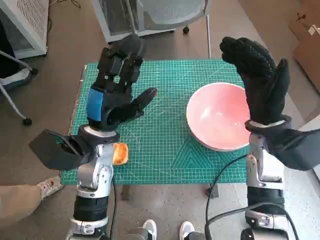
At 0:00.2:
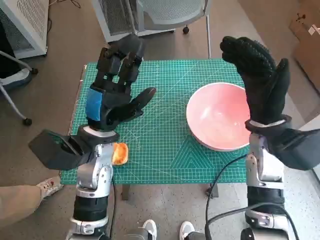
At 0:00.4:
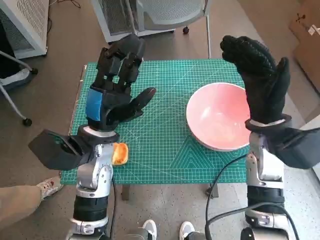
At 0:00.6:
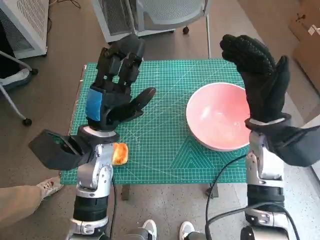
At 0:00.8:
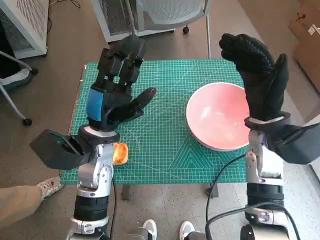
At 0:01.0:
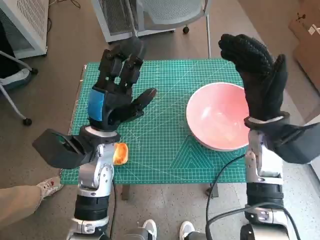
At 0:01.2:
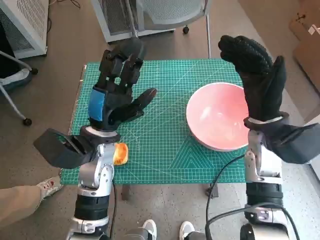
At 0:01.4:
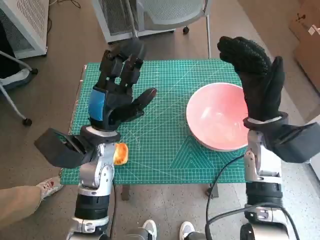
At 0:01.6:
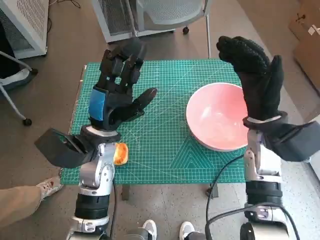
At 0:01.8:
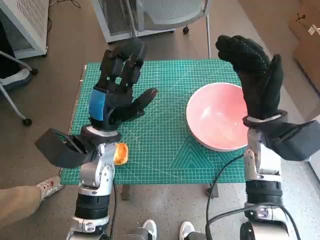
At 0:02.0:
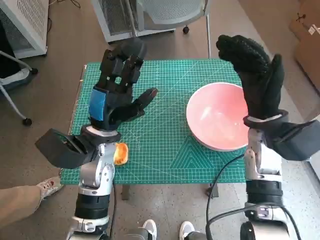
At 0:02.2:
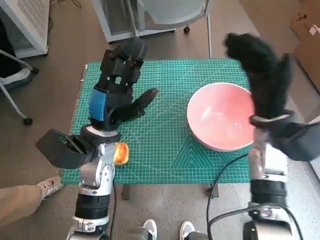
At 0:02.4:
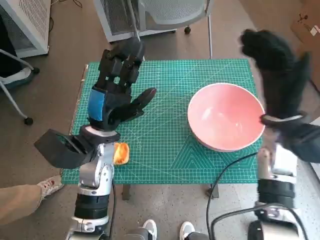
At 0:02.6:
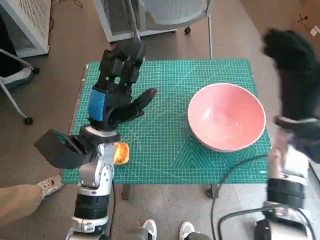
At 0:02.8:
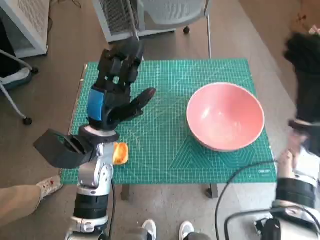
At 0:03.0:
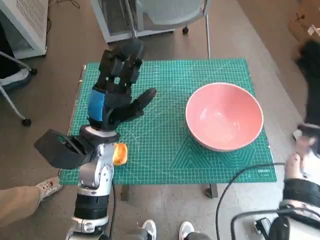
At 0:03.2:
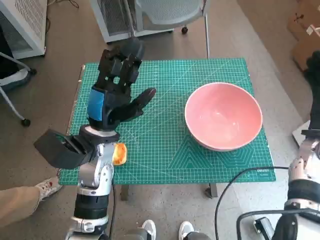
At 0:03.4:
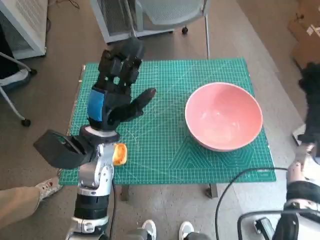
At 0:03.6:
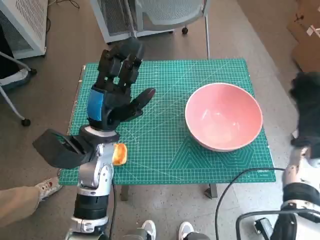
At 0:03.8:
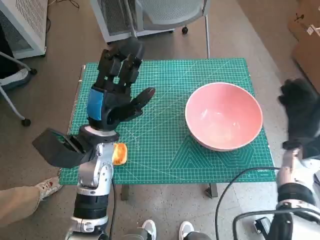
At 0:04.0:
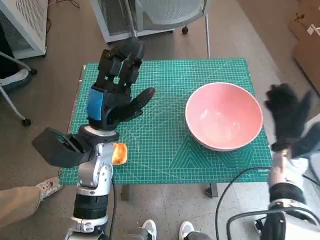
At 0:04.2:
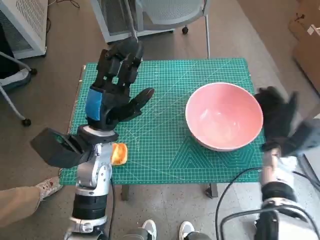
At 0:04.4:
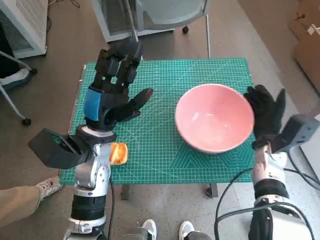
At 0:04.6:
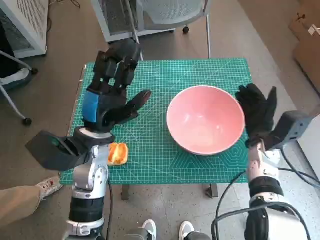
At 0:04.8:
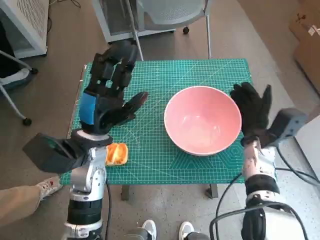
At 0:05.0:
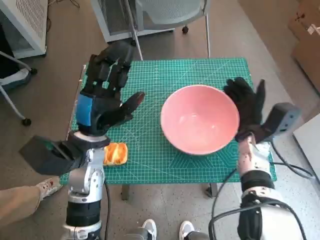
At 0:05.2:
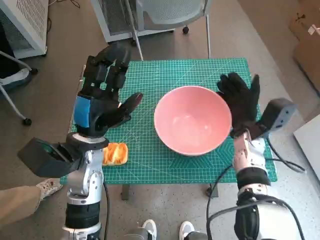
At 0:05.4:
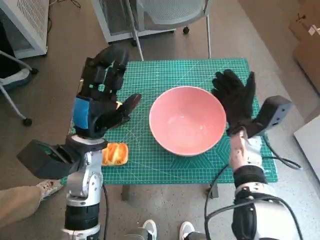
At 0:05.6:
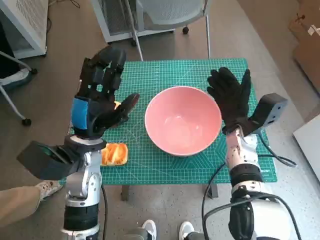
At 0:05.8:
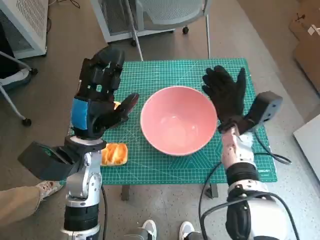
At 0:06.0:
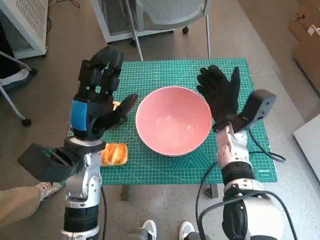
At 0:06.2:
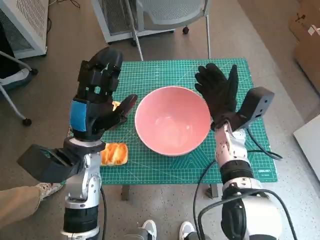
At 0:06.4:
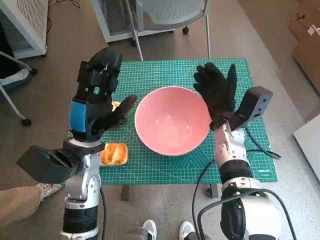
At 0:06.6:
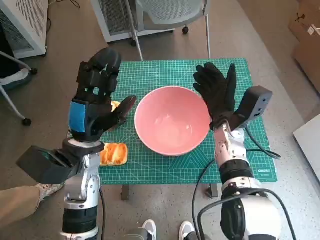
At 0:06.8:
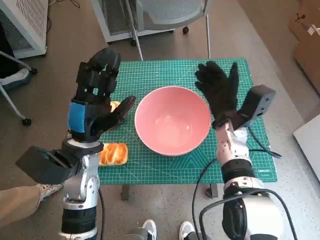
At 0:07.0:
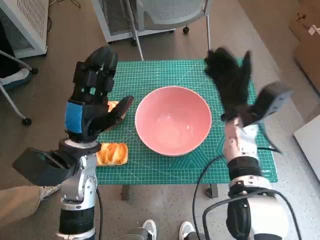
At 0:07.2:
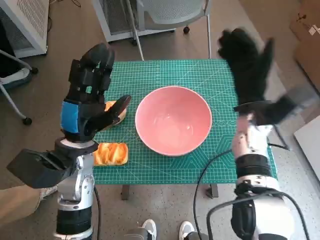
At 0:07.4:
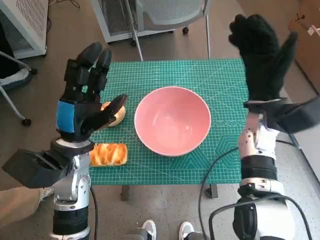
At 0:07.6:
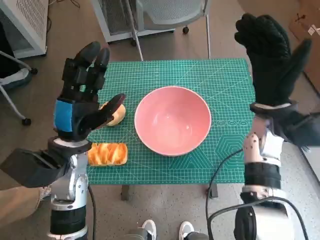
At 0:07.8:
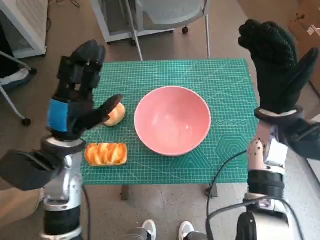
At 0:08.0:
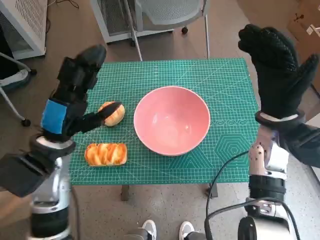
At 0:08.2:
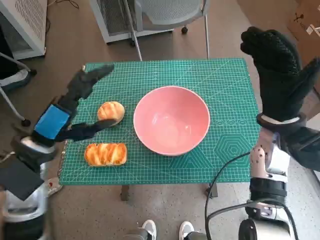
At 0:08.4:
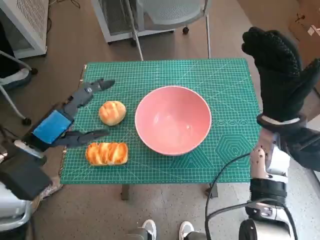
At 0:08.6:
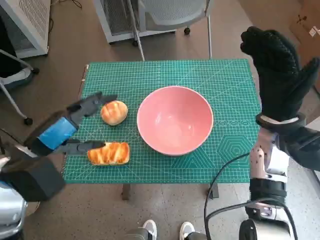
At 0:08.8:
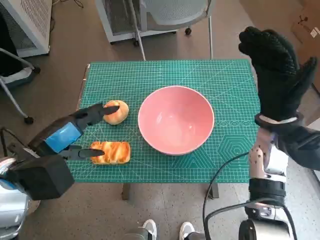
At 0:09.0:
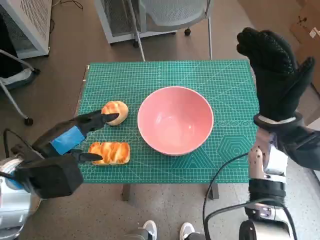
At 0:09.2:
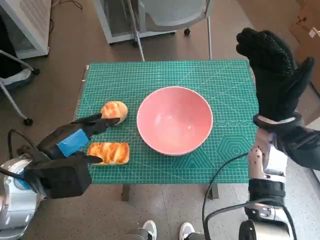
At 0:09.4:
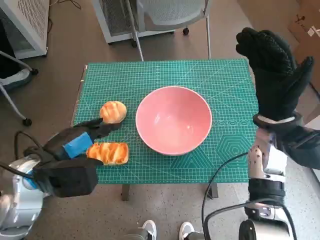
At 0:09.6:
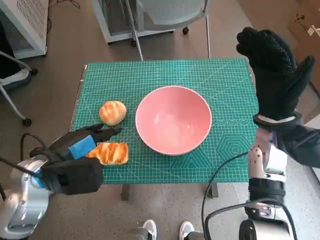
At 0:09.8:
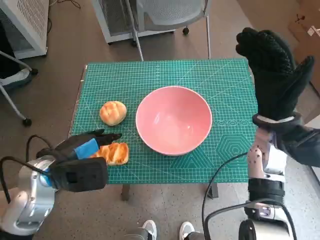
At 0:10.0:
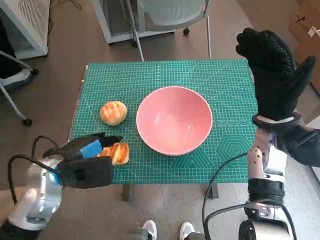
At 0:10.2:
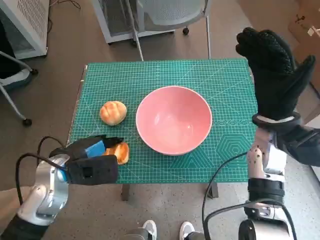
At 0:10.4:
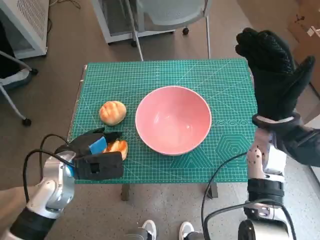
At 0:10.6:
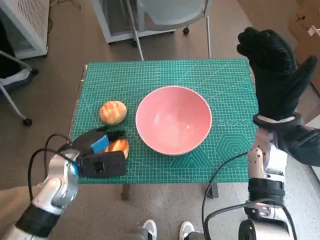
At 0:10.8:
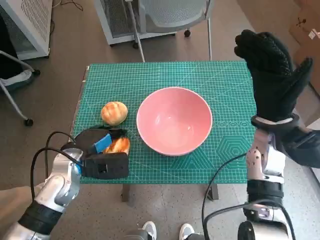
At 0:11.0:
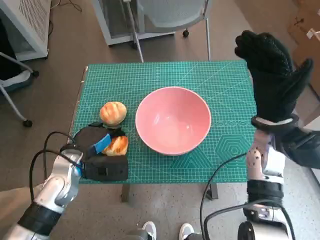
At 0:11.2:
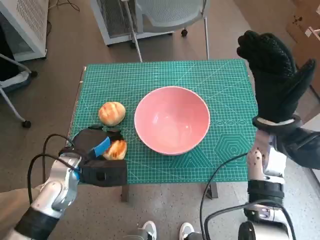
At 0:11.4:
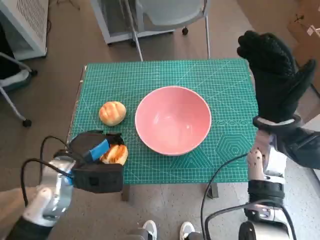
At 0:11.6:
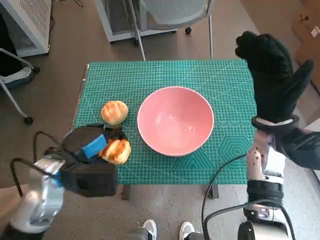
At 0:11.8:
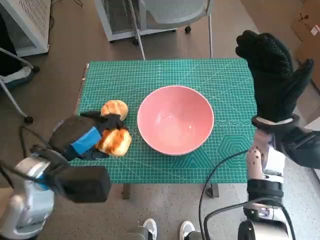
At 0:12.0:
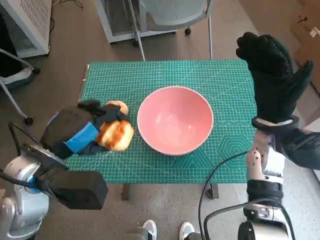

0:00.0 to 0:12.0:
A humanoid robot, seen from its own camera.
Step, 0:00.0 to 0:06.2: Move the pink bowl to the center of table with right hand.
Step, 0:06.4 to 0:11.0: Grasp the long bread with left hand.
0:01.6 to 0:03.0: The right hand is displaced to the right by about 10 cm.
0:03.0 to 0:04.4: The right hand goes approximately 10 cm downward.
0:04.4 to 0:06.0: The right hand is displaced to the left by approximately 10 cm.
0:06.0 to 0:07.6: The right hand travels upward by approximately 10 cm.
0:07.6 to 0:09.0: The left hand shifts by roughly 10 cm.
0:09.0 to 0:10.4: The left hand travels downward by approximately 10 cm.
0:10.4 to 0:12.0: The left hand goes some 10 cm upward.

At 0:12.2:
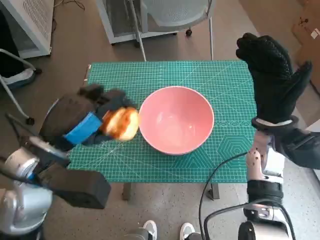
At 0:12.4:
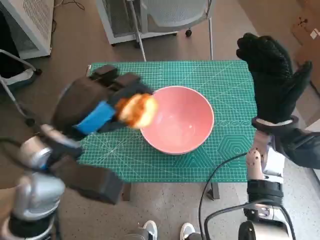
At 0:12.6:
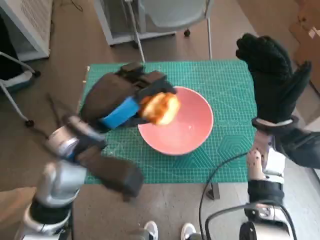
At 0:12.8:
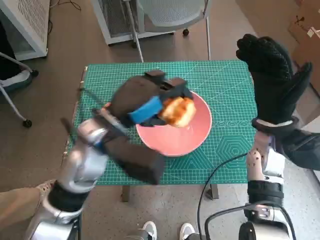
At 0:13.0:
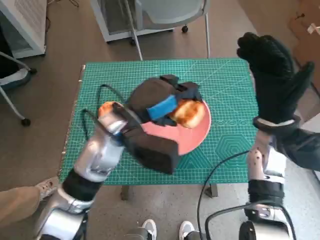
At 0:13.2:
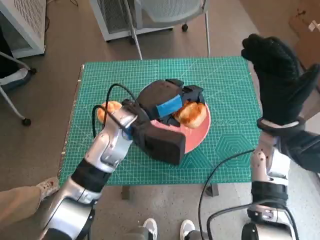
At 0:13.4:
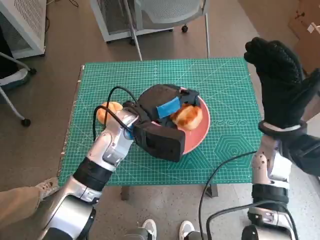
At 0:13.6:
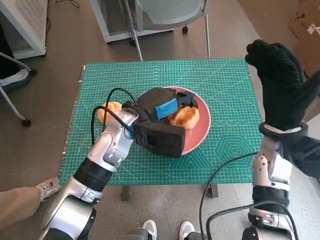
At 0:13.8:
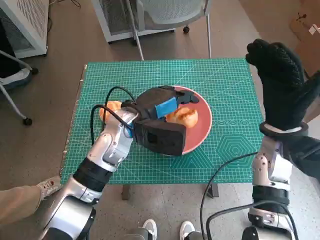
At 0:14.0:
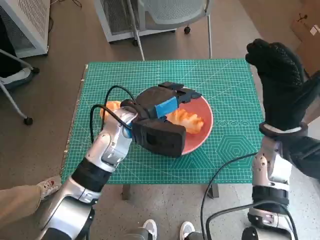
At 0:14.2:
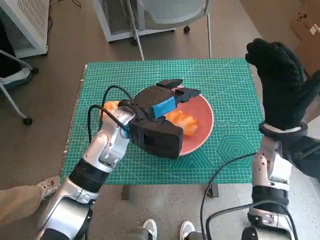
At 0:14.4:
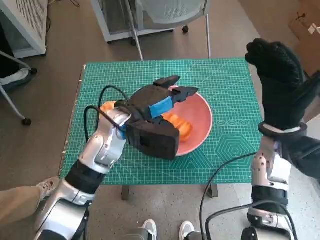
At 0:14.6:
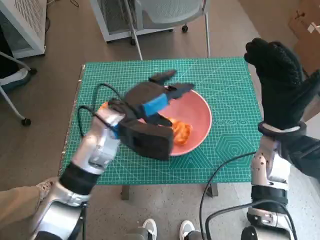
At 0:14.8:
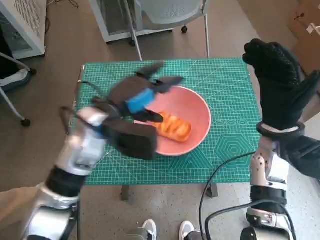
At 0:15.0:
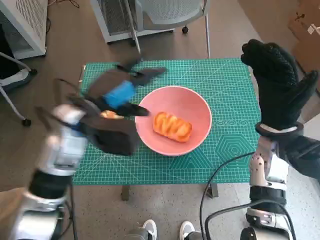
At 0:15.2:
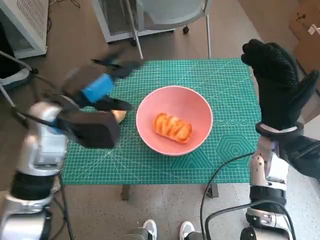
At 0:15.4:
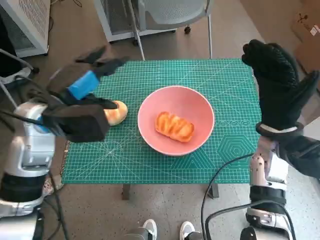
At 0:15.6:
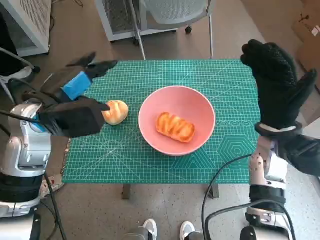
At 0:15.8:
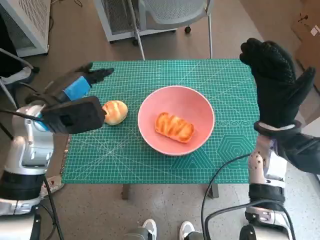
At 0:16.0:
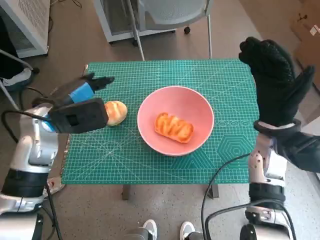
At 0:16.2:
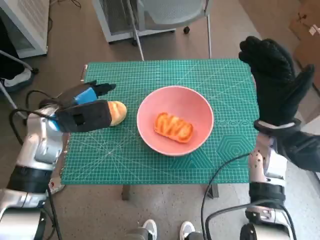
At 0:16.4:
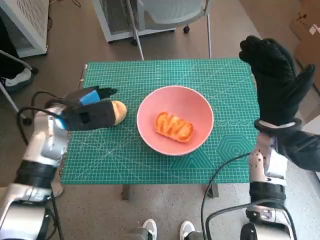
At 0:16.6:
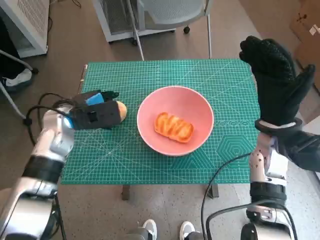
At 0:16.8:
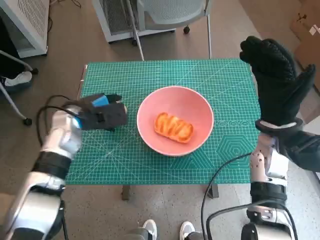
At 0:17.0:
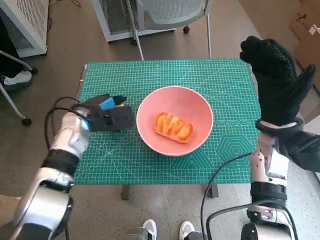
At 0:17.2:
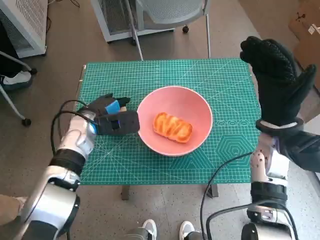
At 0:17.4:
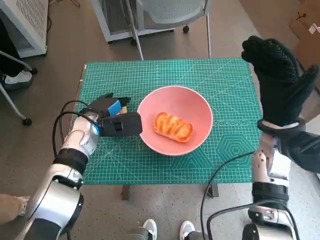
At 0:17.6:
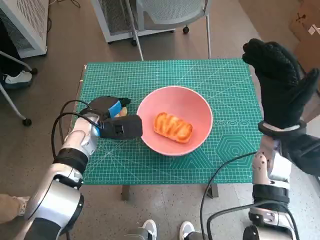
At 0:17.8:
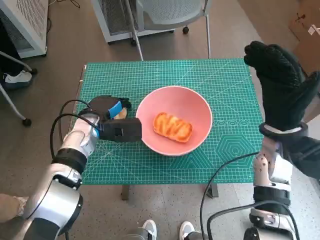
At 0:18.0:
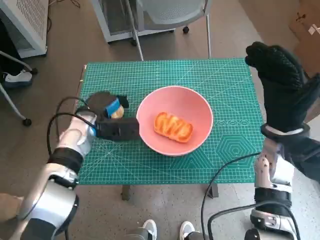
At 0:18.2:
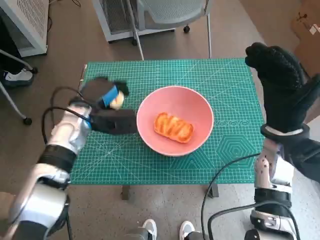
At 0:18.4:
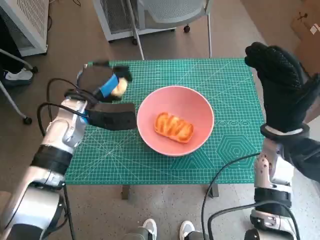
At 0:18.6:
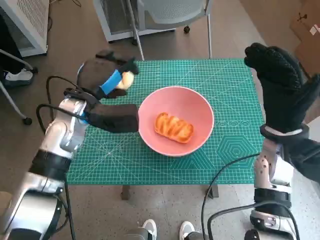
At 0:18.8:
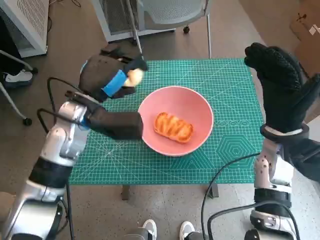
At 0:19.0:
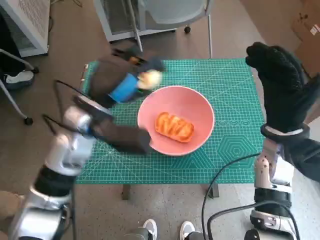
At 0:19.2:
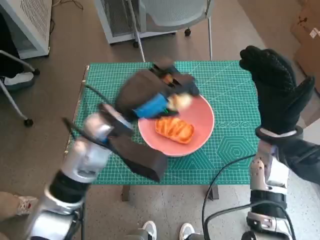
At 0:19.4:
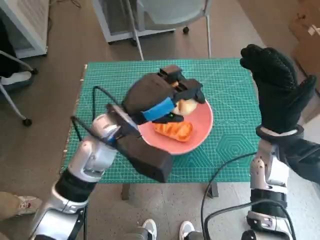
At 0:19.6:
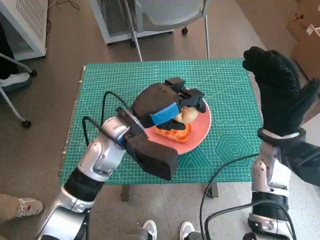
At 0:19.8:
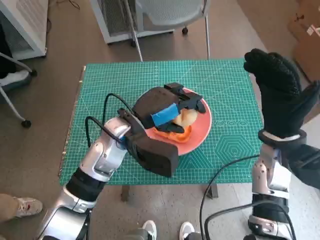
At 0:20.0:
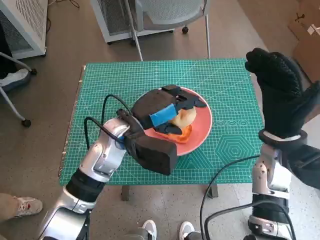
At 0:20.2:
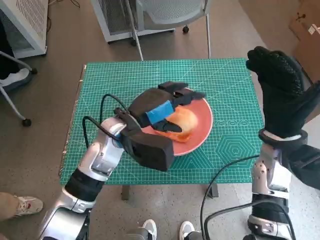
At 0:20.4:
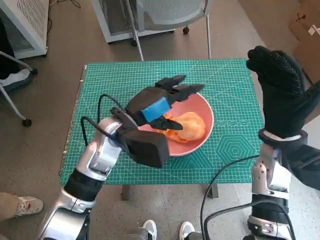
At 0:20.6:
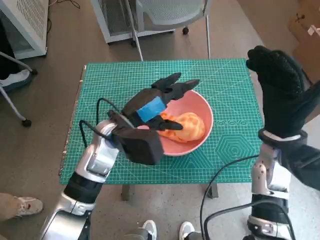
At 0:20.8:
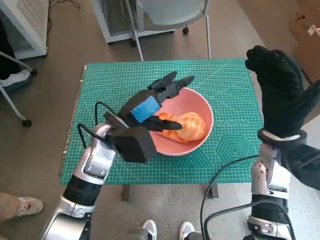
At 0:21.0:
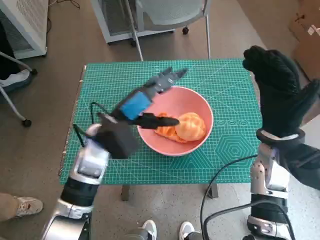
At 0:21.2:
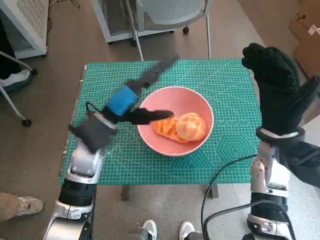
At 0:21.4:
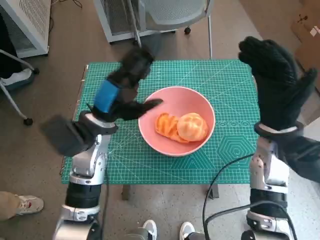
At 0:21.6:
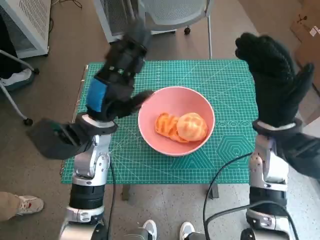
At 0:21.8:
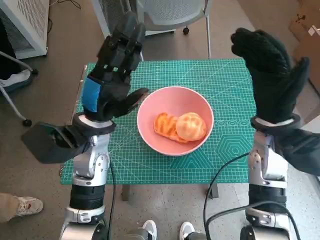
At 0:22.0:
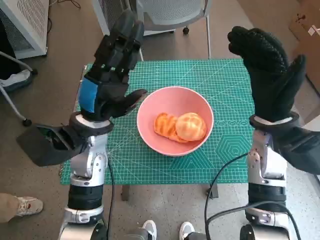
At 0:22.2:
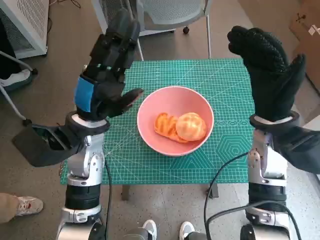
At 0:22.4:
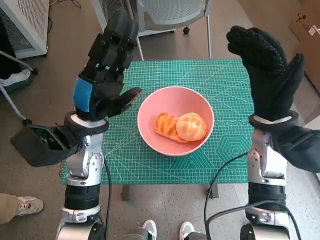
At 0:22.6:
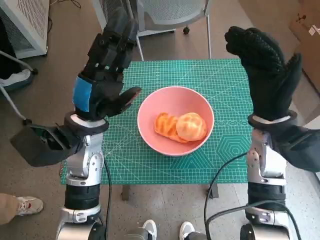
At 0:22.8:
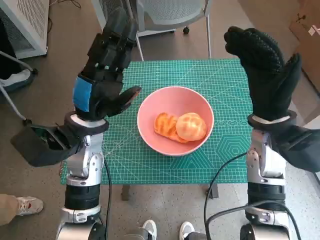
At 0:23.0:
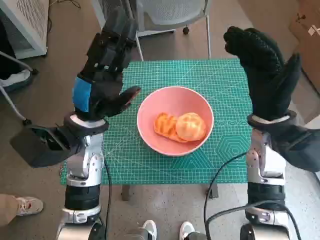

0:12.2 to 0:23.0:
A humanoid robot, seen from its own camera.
Step, 0:12.2 to 0:14.0: Place the long bread in pink bowl with left hand.
Step, 0:14.2 to 0:17.8: Grasp the round bread with left hand.
Step, 0:18.0 to 0:20.2: Place the round bread in pink bowl with left hand.
0:12.2 to 0:13.8: The left hand travels forward, to the right and downward by approximately 15 cm.
0:13.8 to 0:15.2: The left hand heads to the left and upward, covering roughly 10 cm.
0:15.2 to 0:16.8: The left hand travels downward by some 10 cm.
0:18.4 to 0:20.0: The left hand heads to the right, covering roughly 10 cm.
0:20.0 to 0:21.4: The left hand shifts about 5 cm to the left.
